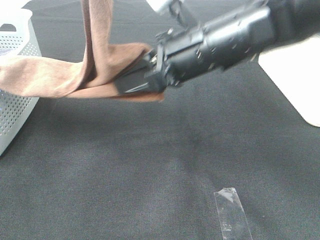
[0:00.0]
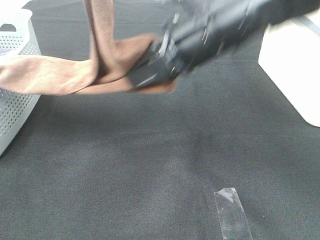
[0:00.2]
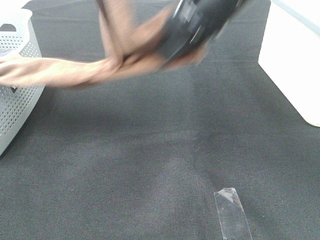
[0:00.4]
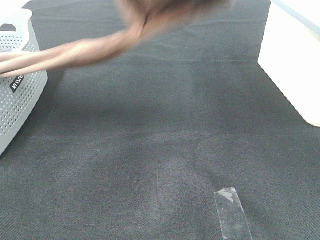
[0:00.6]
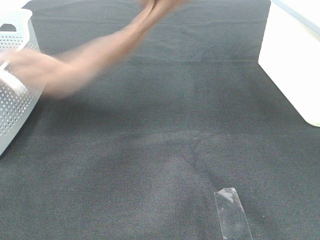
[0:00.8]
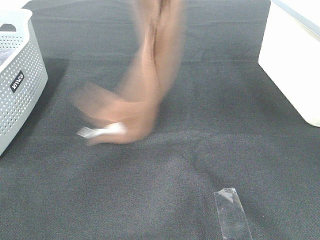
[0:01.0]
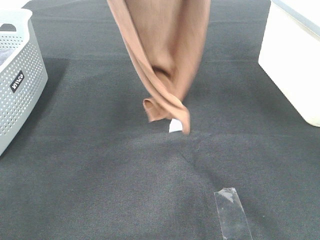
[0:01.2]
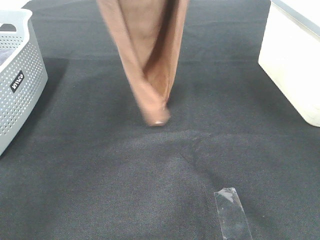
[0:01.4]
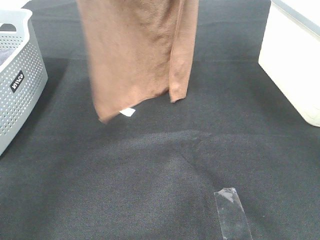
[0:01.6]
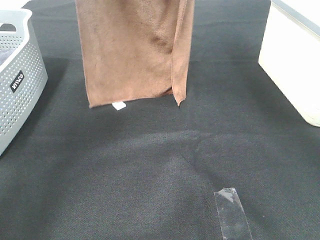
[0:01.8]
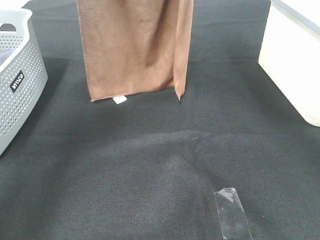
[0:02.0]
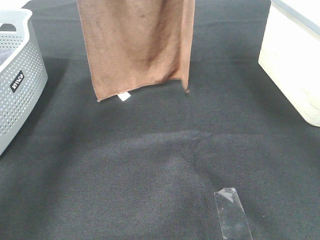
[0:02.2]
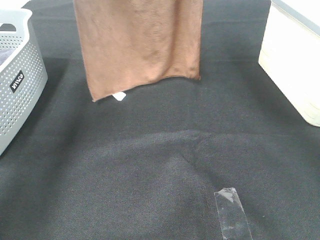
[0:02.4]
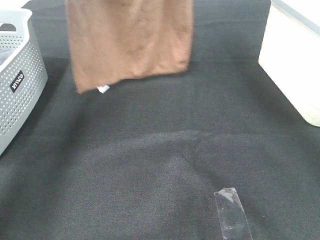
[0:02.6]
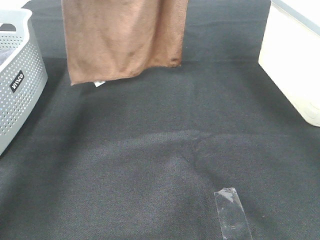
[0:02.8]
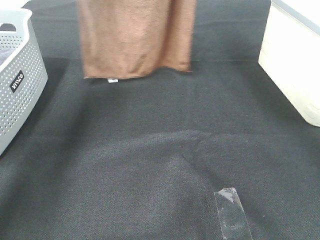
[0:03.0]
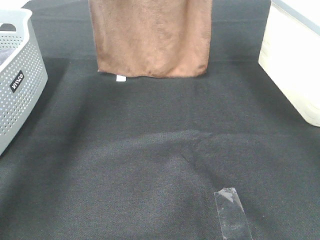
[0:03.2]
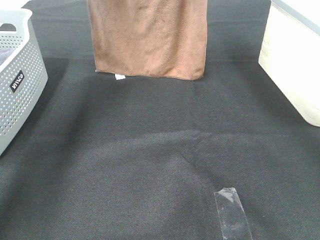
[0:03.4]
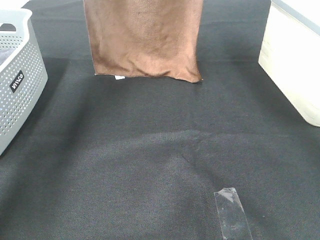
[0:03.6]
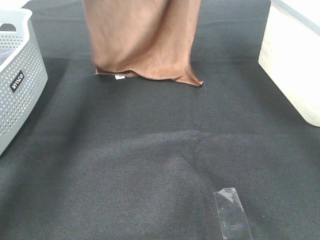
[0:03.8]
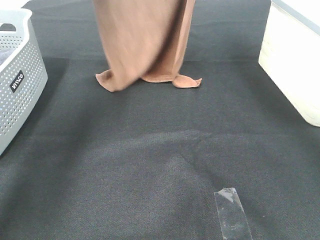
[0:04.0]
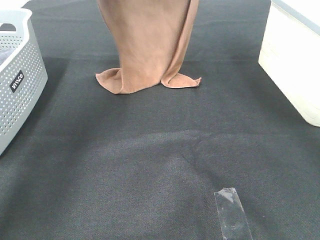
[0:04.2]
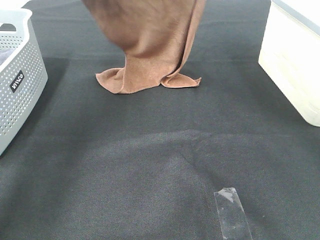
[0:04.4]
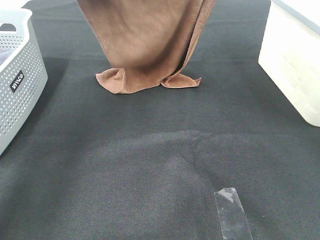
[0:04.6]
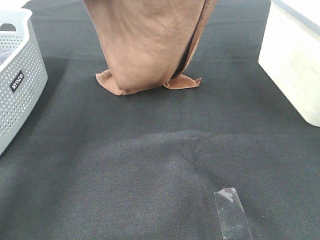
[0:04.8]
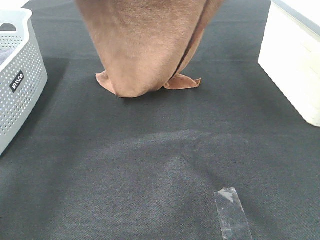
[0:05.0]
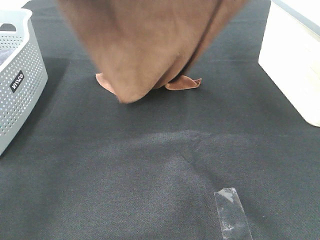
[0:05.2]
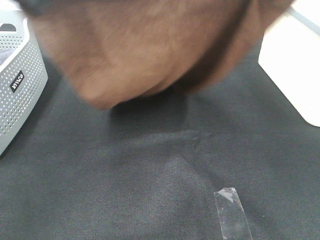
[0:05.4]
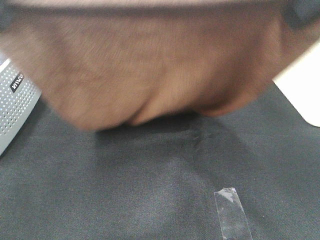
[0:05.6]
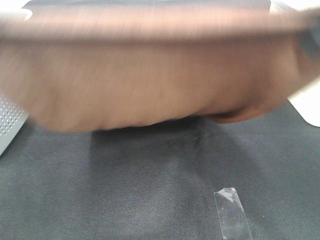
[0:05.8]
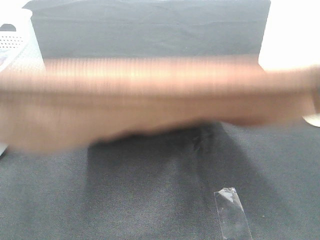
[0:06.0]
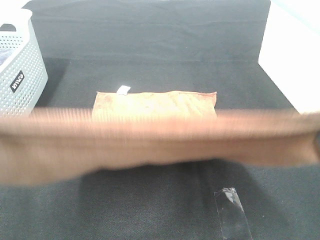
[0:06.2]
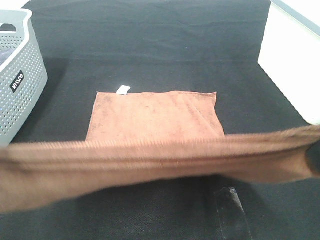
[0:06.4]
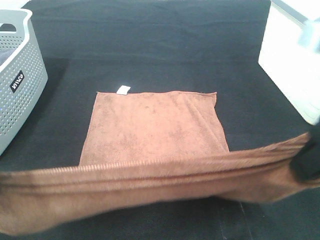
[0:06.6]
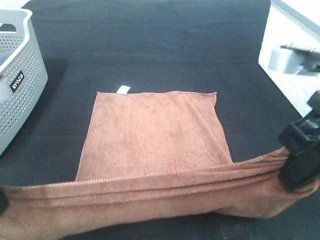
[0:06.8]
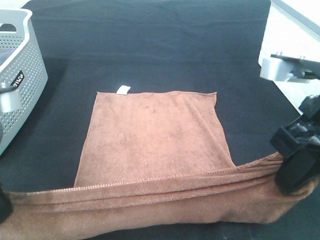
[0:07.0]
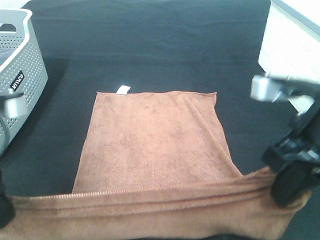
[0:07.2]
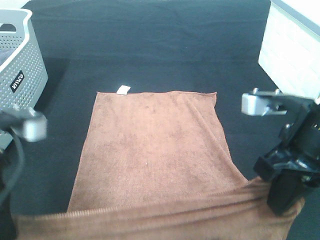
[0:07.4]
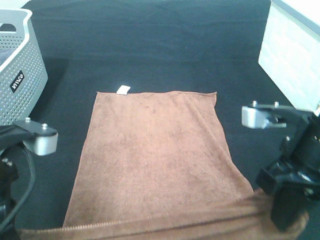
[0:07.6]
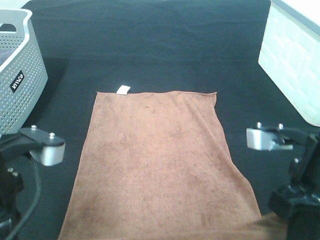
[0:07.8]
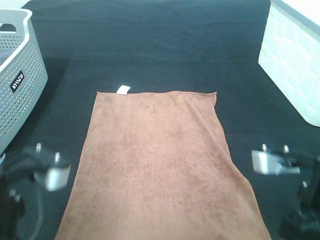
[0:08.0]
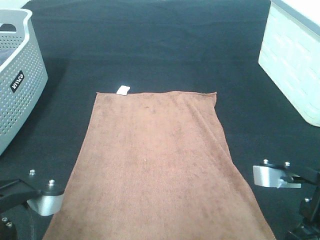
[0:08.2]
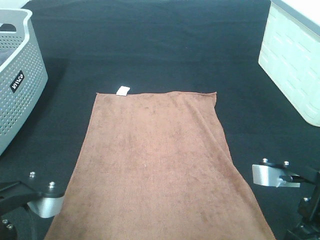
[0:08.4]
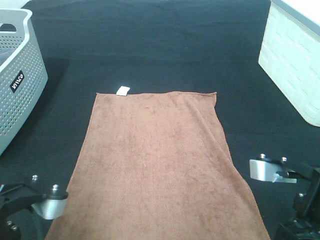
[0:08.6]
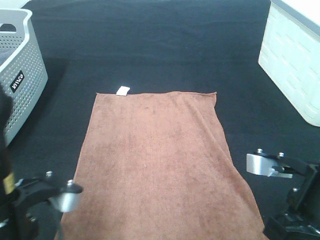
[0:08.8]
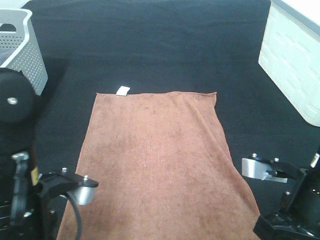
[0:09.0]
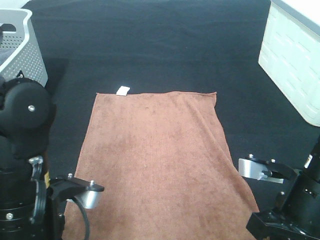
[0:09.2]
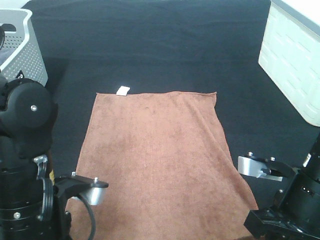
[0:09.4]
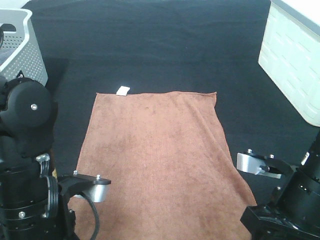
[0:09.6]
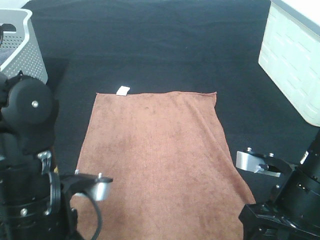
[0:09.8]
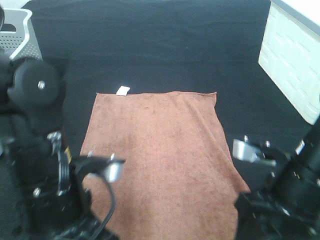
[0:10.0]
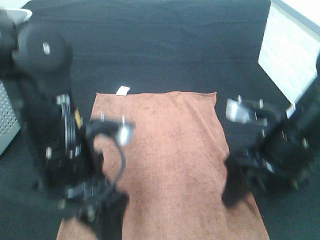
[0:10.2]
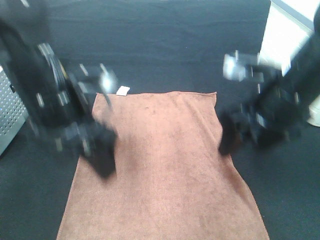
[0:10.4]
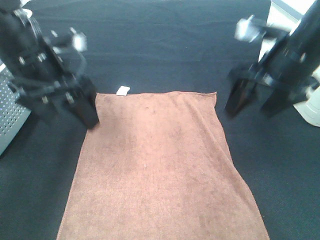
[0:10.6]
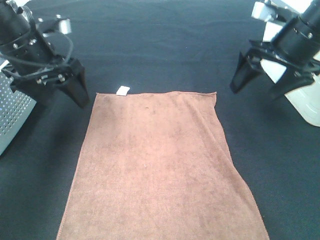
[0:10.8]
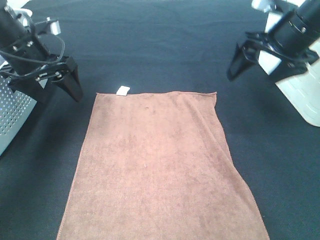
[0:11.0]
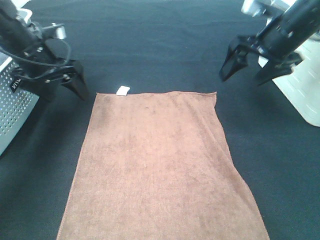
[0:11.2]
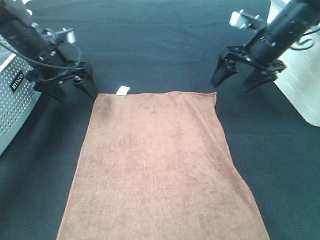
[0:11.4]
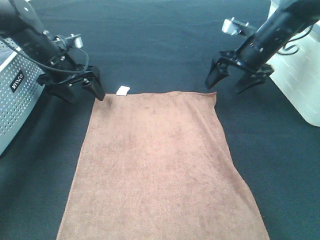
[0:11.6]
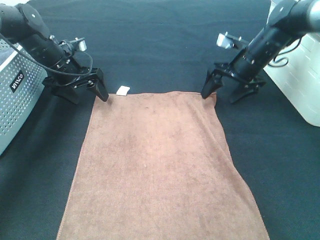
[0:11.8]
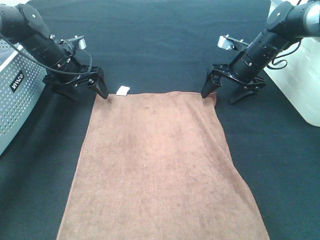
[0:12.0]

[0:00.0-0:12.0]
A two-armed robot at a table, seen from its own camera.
Task of the whole recording: Remove the towel and place it.
Step, 0:00.0 to 0:05.4: Left hand: spread the brown towel flat on the table.
Step, 0:00.0 to 0:05.4: Right hand: spread the brown towel flat on the table.
Step, 0:05.6 to 0:11.2: Left hand:adjust the brown towel.
Step, 0:05.6 to 0:11.2: Right hand:adjust the brown towel.
0:00.0 to 0:01.6: The left gripper moves forward and to the left, approximately 15 cm, while the right gripper is displaced upward and forward by about 30 cm.
0:01.6 to 0:03.0: The right gripper heads forward, covering approximately 5 cm, while the left gripper moves forward, roughly 10 cm.
0:03.0 to 0:04.4: The left gripper is displaced downward by approximately 10 cm; the right gripper moves downward, approximately 5 cm.
0:04.4 to 0:06.0: Both grippers travel together backward, roughly 30 cm.
0:06.0 to 0:07.6: The left gripper shifts some 15 cm downward. Meanwhile the right gripper is displaced downward and forward by roughly 20 cm.
0:07.6 to 0:09.0: The right gripper ends up approximately 5 cm from where it was. The left gripper travels downward by roughly 5 cm.
0:09.0 to 0:10.4: The grippers both shift forward and upward by approximately 15 cm. The left gripper opens up; the right gripper opens up.
0:10.4 to 0:12.0: The right gripper heads forward and downward, covering some 25 cm. The left gripper travels forward, downward and to the left by approximately 25 cm.

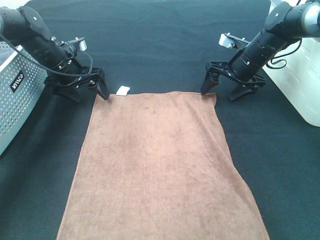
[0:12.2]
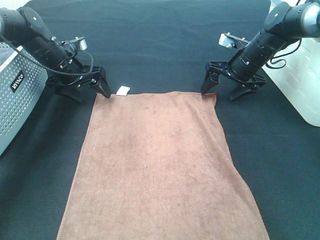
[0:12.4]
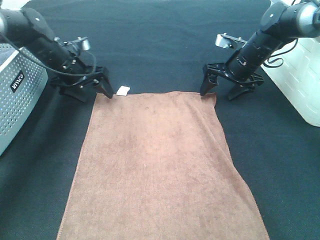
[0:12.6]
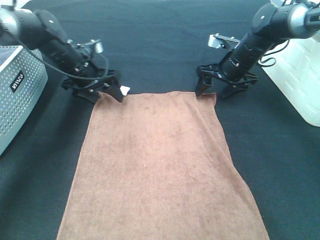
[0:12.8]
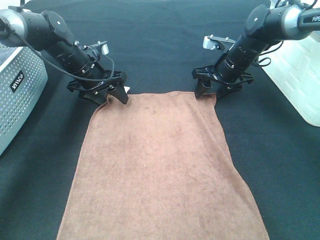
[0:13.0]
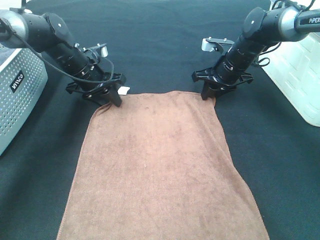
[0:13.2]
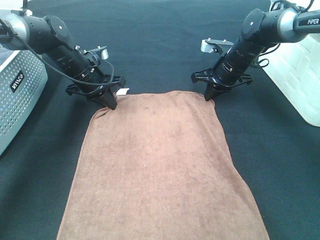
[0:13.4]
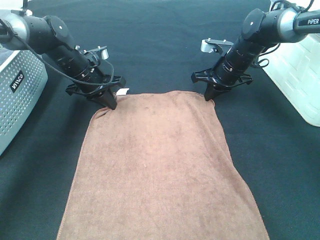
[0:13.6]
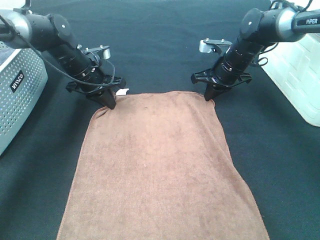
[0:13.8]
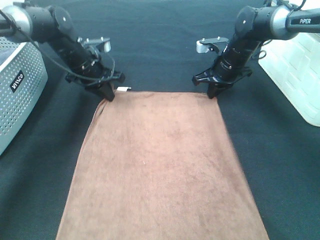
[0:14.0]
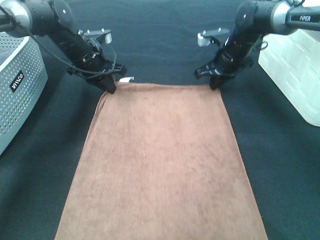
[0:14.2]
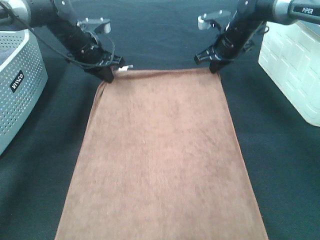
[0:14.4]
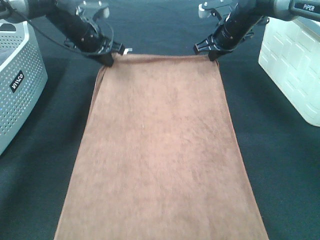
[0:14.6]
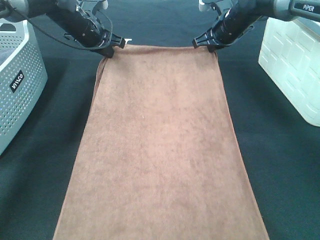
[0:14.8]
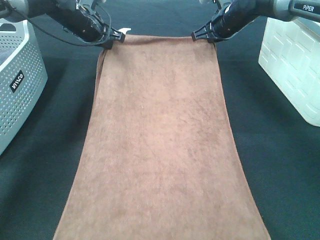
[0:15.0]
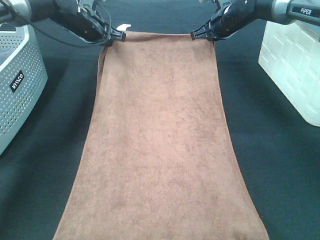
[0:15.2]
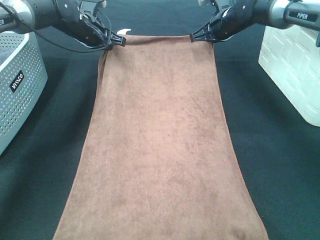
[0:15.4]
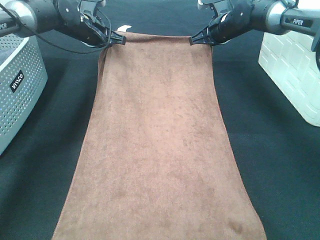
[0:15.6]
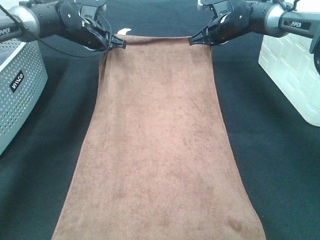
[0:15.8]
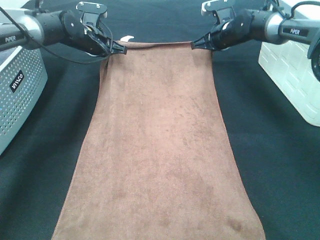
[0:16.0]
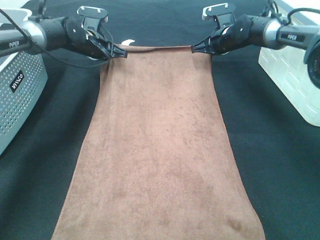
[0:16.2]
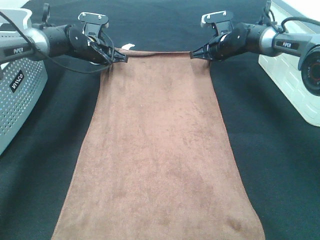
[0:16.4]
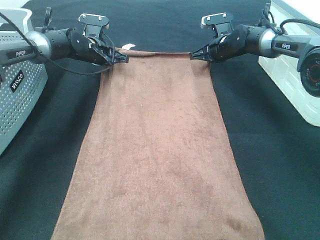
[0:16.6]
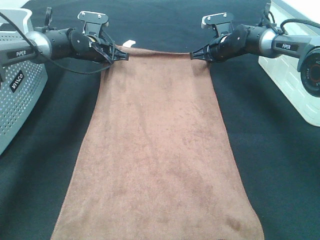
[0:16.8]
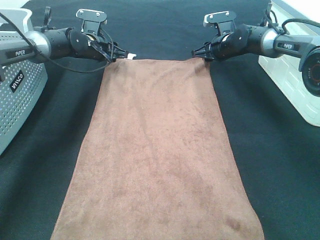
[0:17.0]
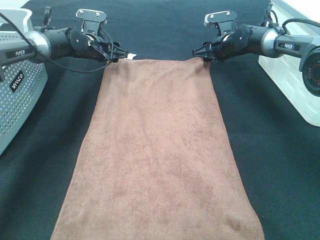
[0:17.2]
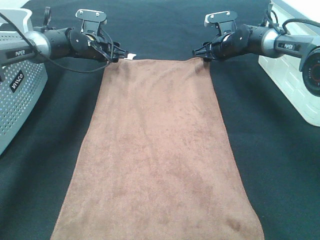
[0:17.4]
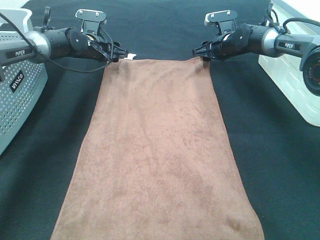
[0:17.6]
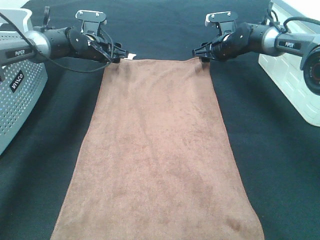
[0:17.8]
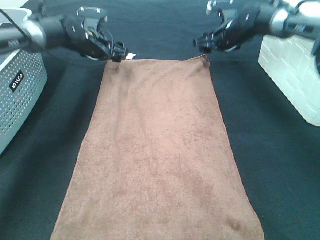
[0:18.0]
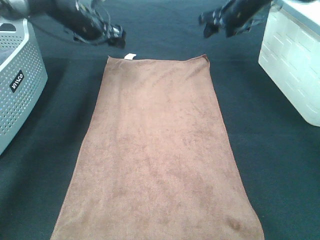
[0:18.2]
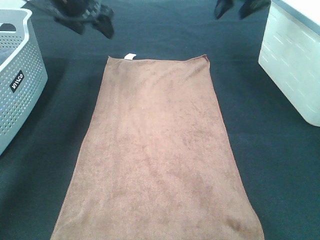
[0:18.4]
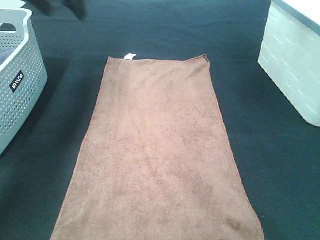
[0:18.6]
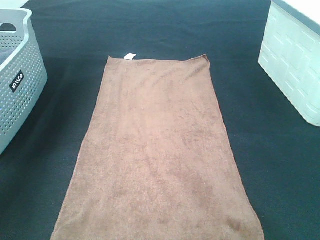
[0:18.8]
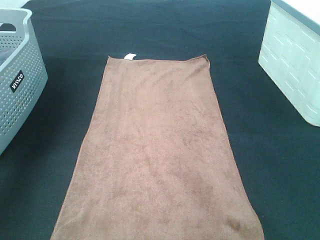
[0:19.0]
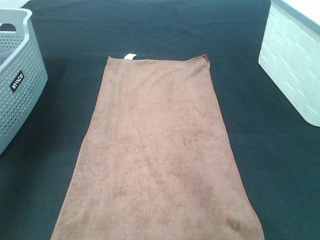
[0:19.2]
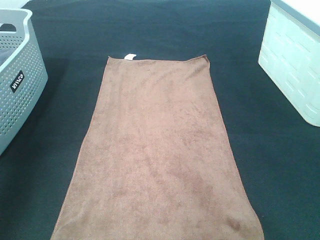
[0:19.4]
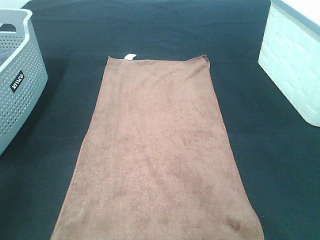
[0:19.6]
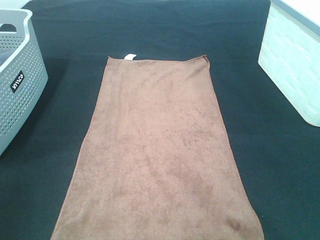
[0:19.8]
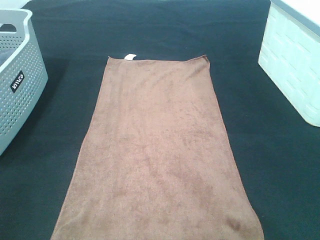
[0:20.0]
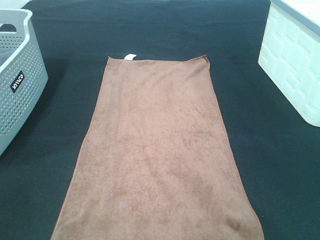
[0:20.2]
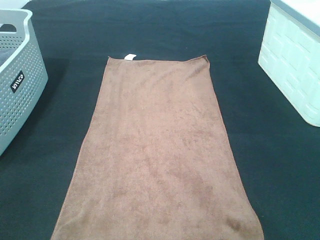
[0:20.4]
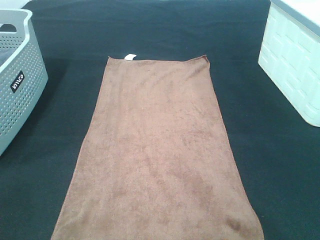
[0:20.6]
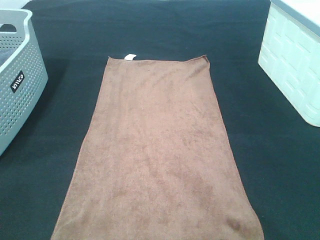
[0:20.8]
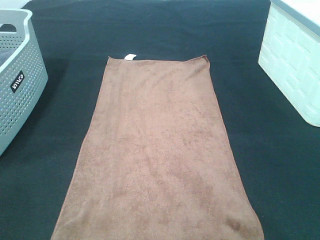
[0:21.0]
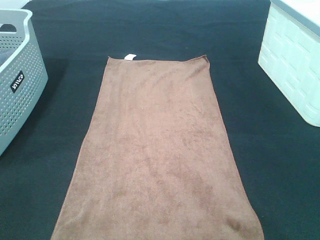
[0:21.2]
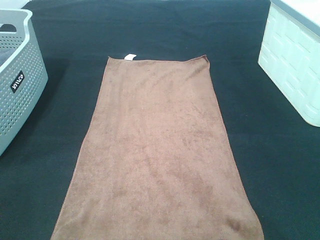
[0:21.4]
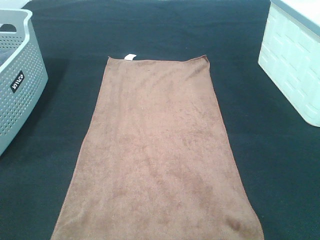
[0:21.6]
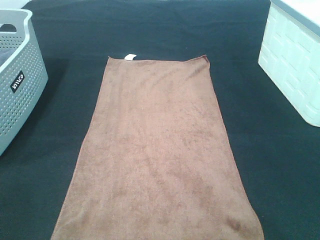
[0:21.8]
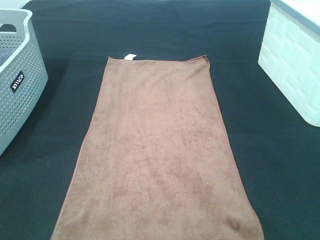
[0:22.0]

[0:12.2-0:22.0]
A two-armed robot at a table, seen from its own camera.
Task of the whole recording: Remove the towel and place it.
0:12.2 to 0:13.6: The right gripper closes its fingers; the left gripper ends up some 5 cm from where it was, and closes up.
0:13.6 to 0:15.0: Both grippers move upward and forward, about 10 cm.
0:15.0 to 0:16.4: The two grippers go about 10 cm downward.
0:16.4 to 0:17.8: The left gripper opens its fingers; the right gripper opens its fingers.
0:17.8 to 0:19.2: The right gripper goes approximately 40 cm upward and backward, while the left gripper goes approximately 40 cm upward, backward and to the left.
0:19.2 to 0:20.6: The two grippers go roughly 35 cm backward.
